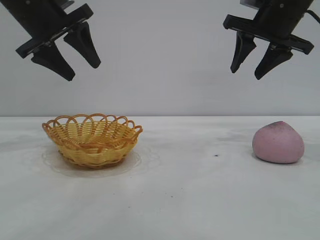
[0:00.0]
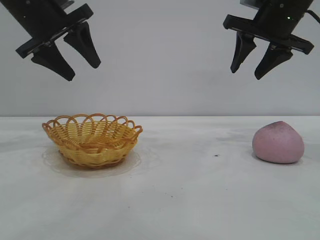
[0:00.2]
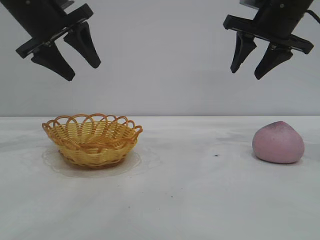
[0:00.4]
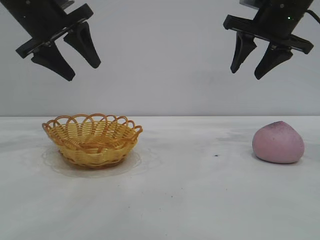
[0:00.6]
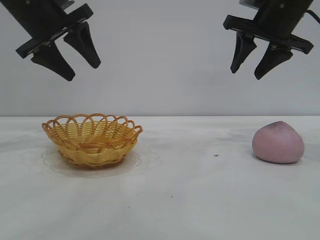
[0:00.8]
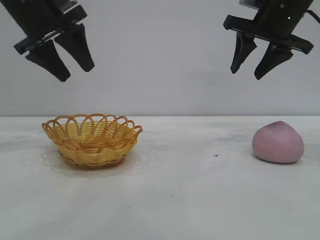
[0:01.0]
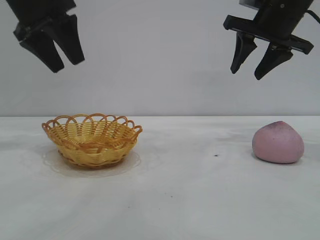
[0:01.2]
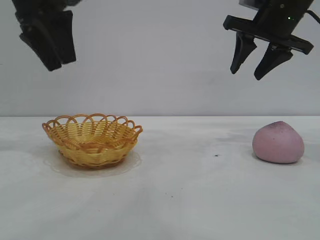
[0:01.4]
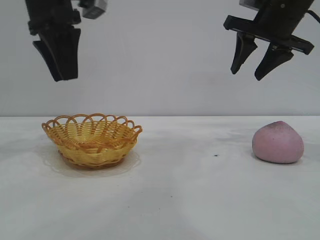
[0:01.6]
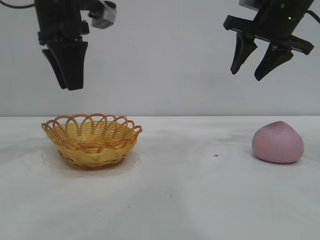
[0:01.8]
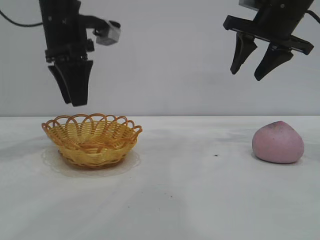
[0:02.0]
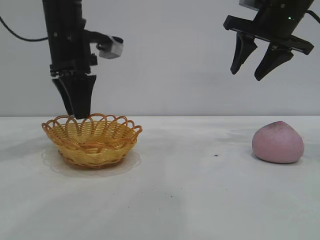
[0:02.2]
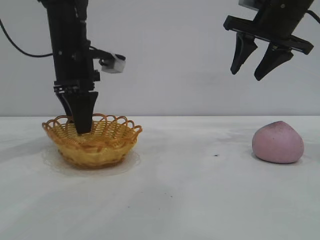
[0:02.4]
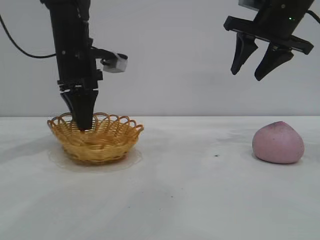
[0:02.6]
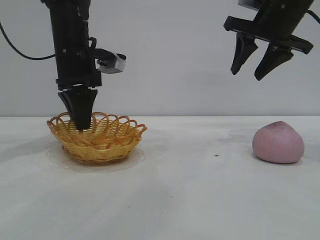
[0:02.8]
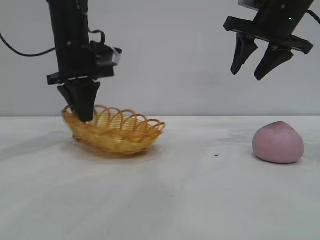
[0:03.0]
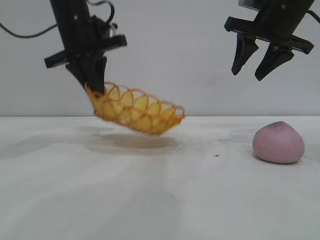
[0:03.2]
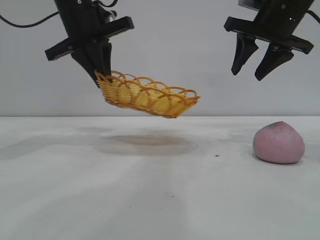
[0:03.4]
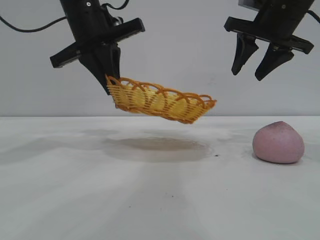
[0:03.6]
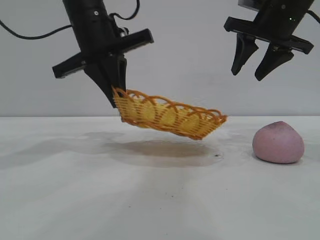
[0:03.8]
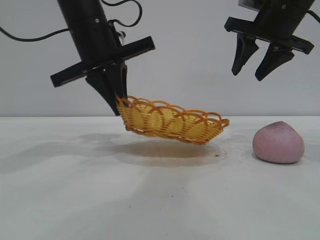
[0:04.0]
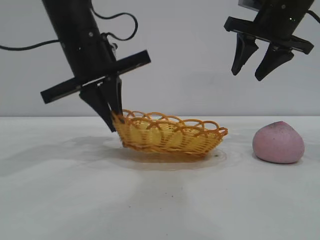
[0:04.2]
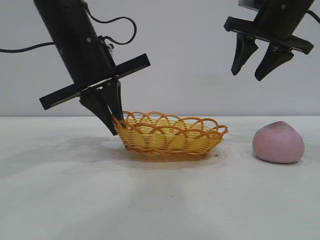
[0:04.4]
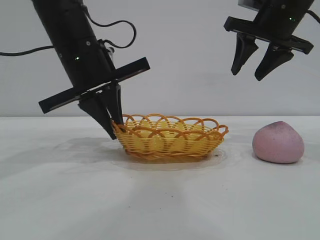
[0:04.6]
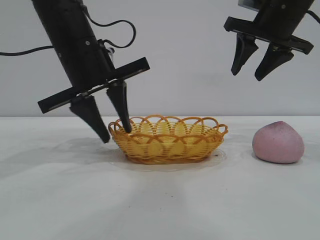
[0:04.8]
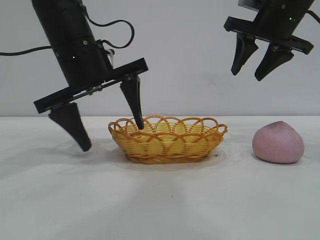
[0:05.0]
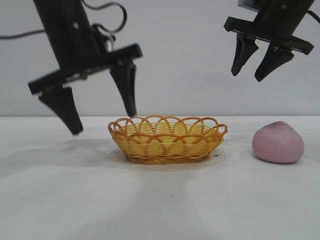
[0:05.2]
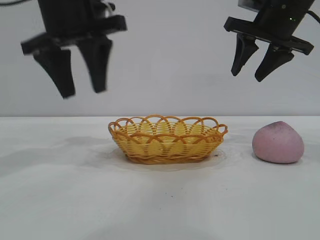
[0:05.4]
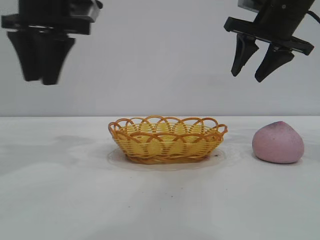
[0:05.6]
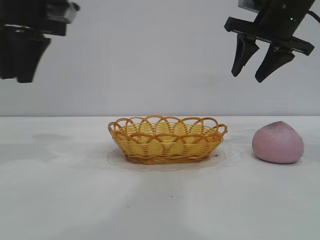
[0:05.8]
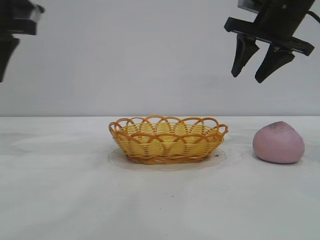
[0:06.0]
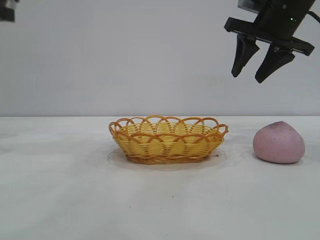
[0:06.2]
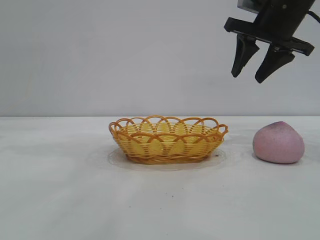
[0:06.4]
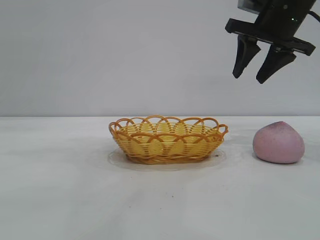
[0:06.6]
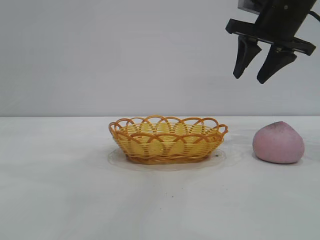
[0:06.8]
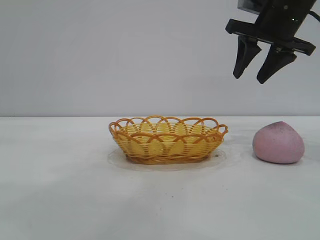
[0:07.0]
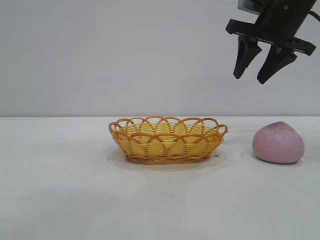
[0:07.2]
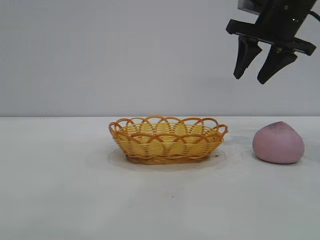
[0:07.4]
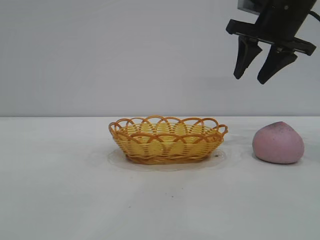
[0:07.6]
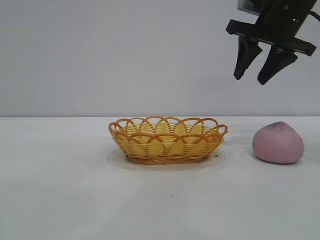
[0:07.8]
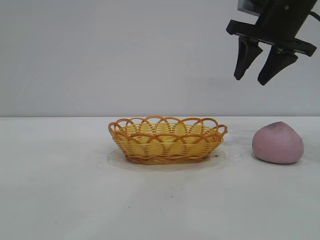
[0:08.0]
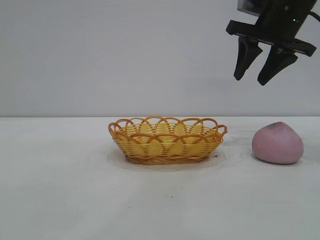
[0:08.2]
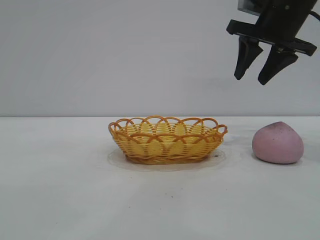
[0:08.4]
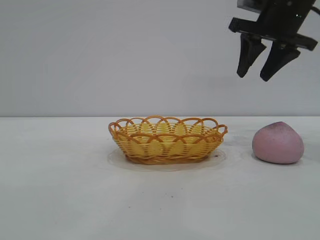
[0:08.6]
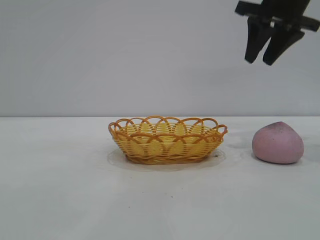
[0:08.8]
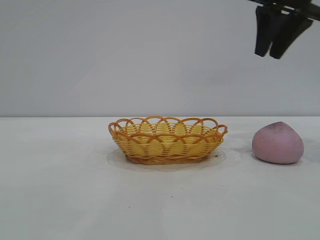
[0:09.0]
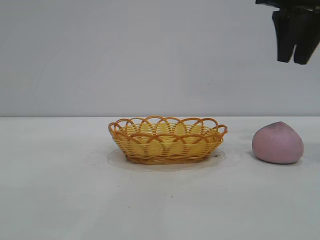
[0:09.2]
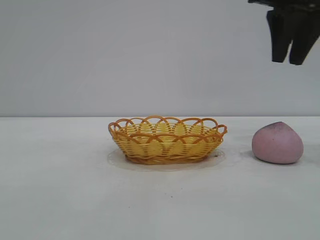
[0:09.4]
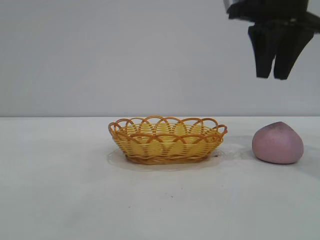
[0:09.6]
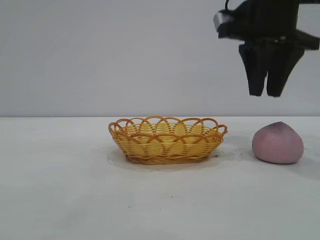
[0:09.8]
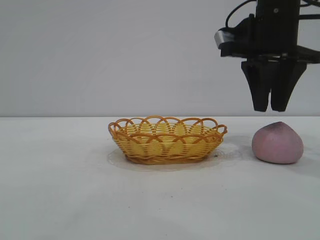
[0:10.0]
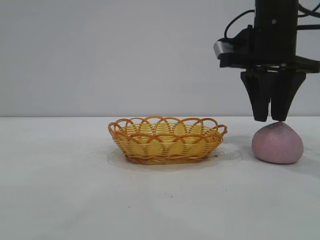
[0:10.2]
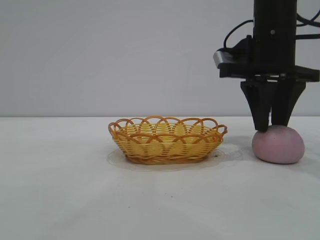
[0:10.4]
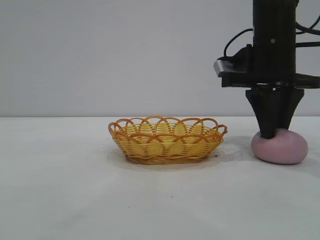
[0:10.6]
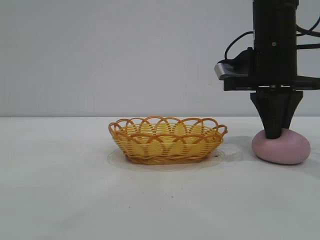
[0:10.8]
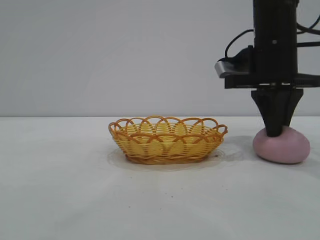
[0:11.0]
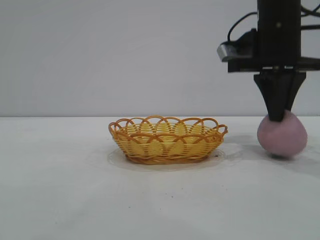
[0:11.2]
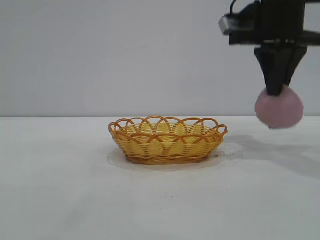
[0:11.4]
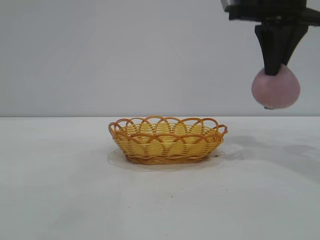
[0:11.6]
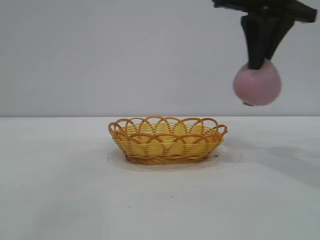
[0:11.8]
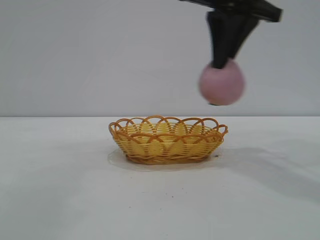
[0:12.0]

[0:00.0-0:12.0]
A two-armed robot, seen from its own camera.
Task of the whole recording: pick up the peach and put it into the basket.
Step, 0:00.0 to 0:05.2: Move the basket to the center of view.
Step, 0:05.4 to 0:11.2: Pick up the peach.

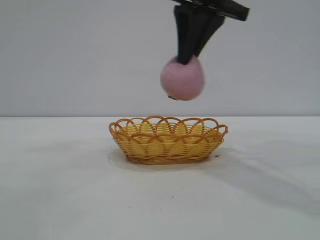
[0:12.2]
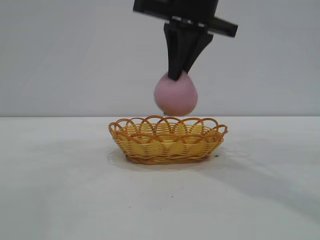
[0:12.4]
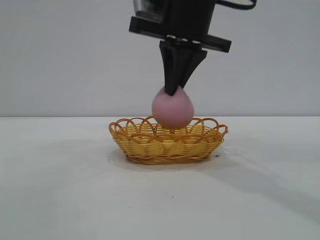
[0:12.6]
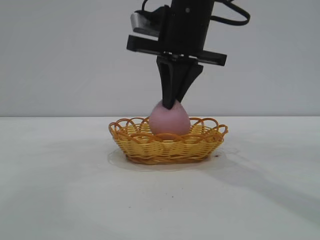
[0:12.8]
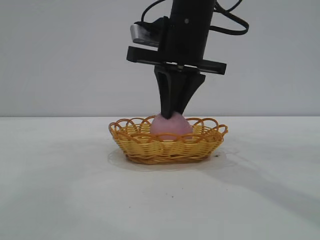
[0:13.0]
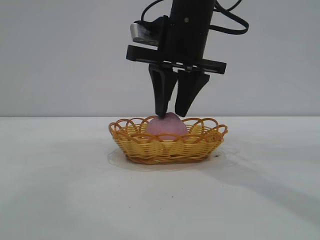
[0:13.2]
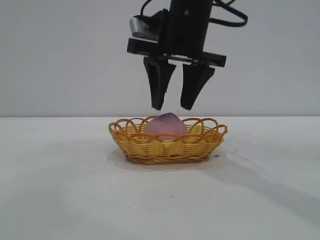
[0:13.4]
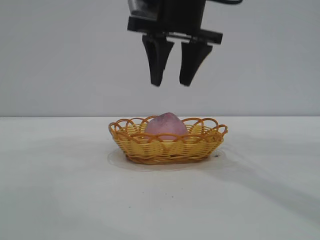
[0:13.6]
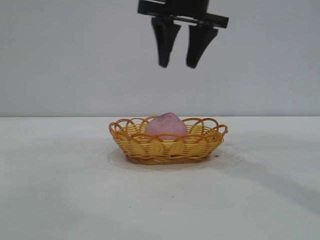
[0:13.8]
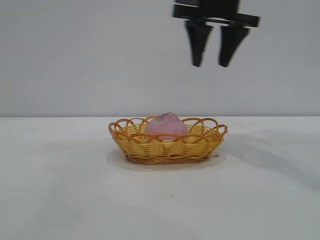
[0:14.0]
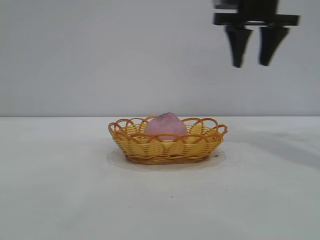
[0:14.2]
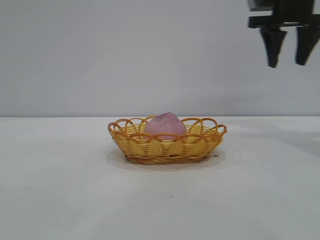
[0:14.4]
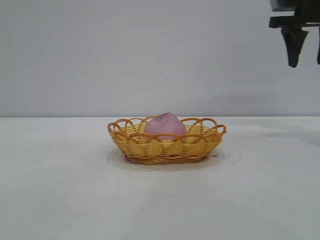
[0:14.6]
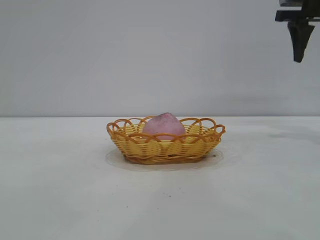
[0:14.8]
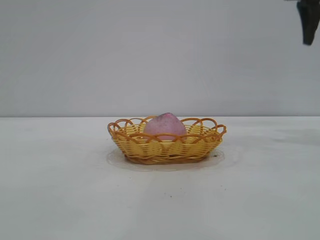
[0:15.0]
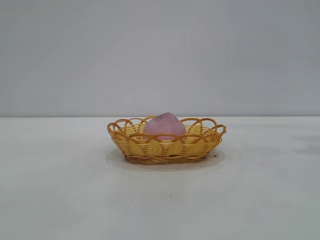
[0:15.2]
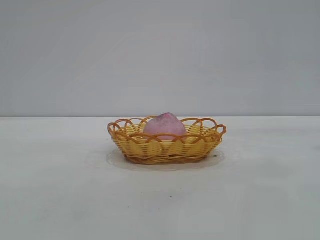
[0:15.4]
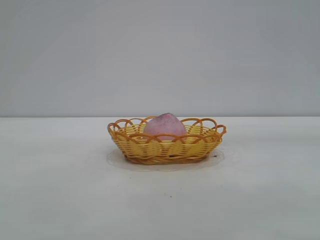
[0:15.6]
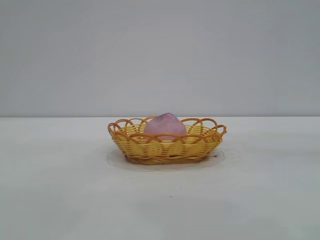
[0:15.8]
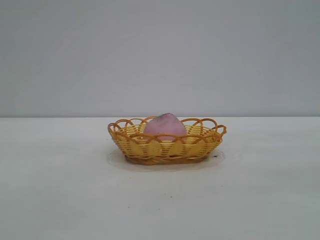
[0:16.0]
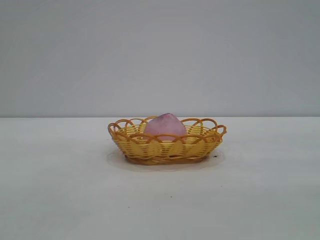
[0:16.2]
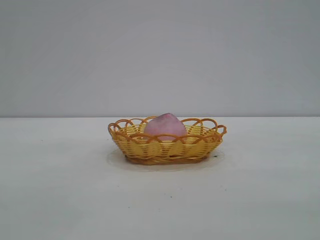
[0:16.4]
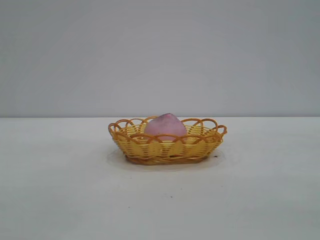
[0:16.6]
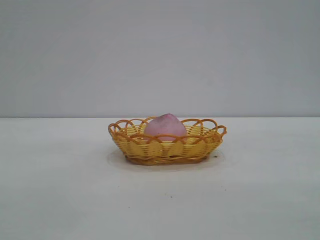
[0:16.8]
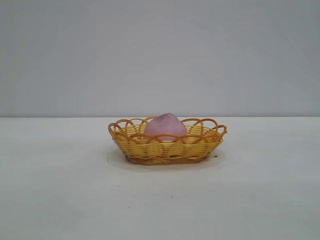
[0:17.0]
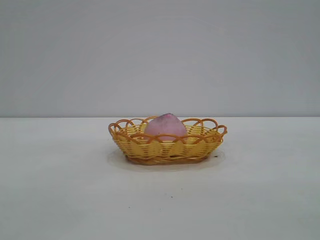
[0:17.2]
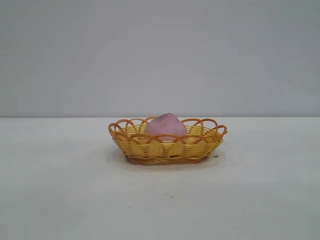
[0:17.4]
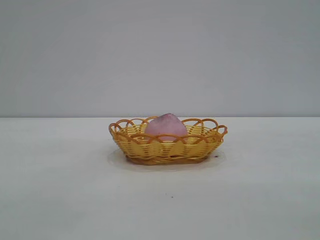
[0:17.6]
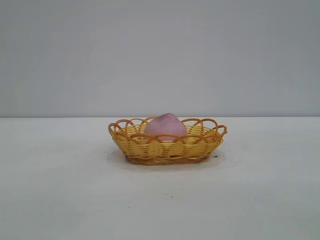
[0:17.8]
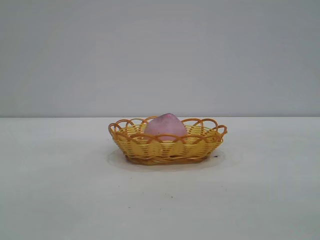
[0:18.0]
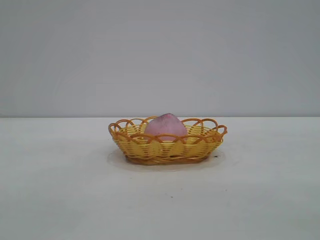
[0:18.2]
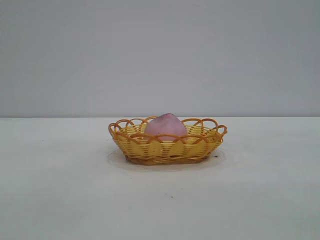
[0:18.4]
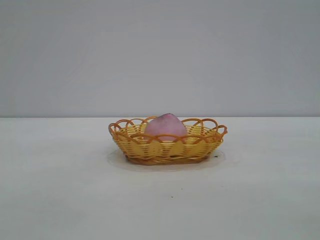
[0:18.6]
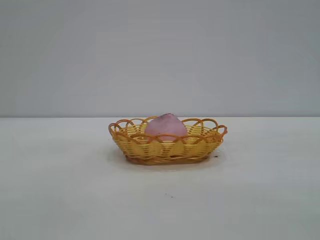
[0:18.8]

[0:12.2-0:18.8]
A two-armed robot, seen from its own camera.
Task of the whole recording: pick up the peach and put it into the basket.
Step, 0:12.2 to 0:13.4: place the peach into the basket.
